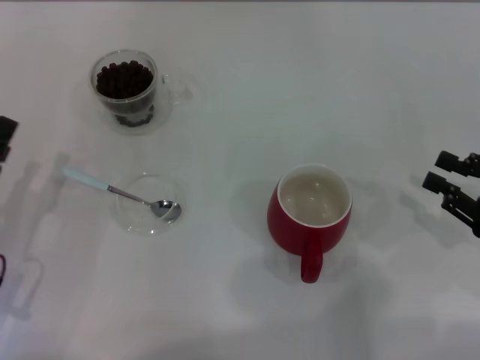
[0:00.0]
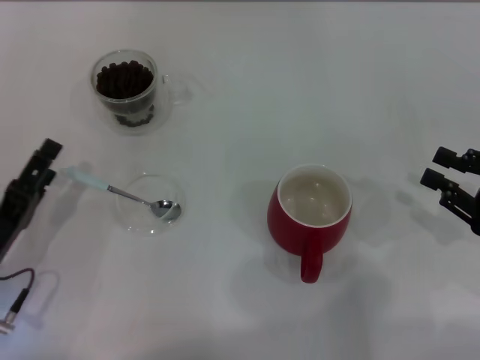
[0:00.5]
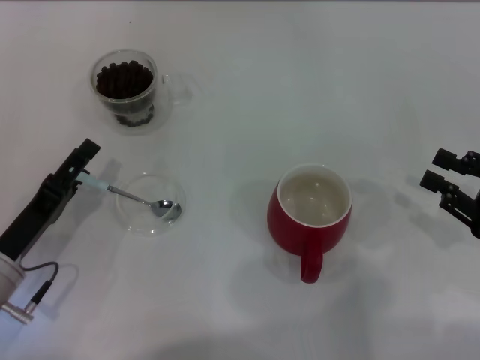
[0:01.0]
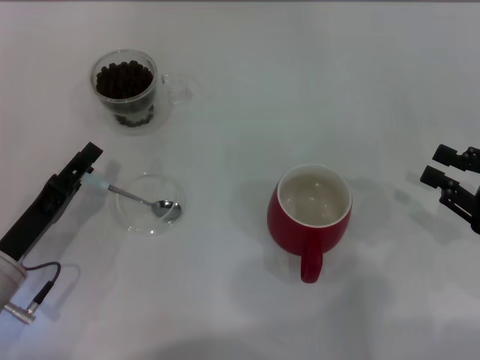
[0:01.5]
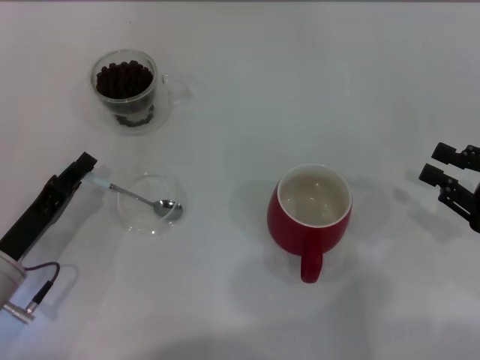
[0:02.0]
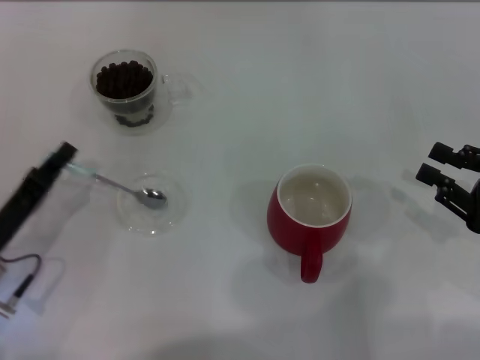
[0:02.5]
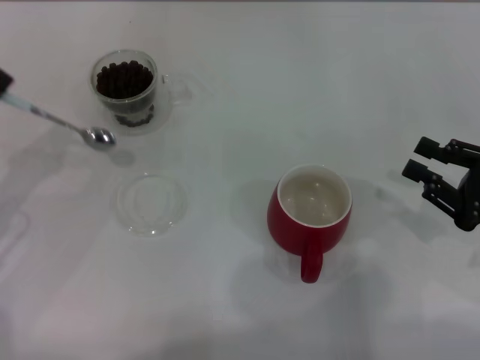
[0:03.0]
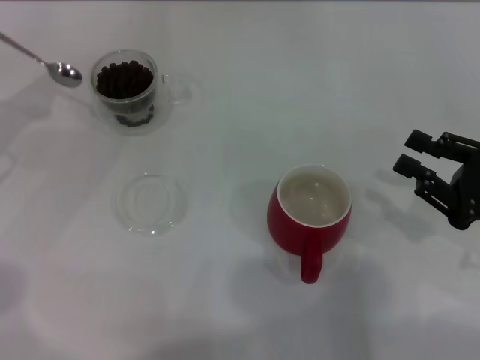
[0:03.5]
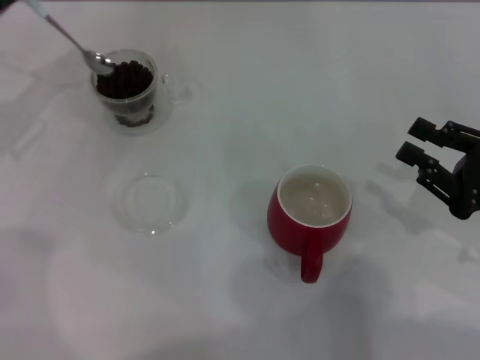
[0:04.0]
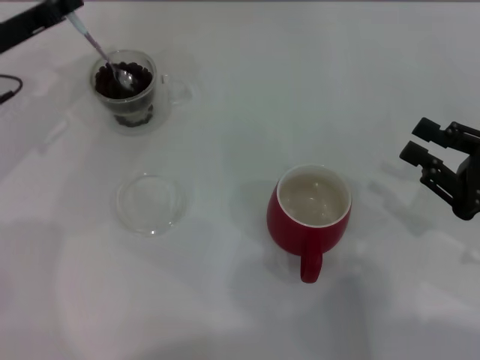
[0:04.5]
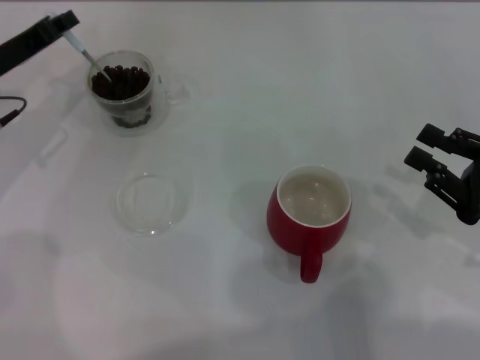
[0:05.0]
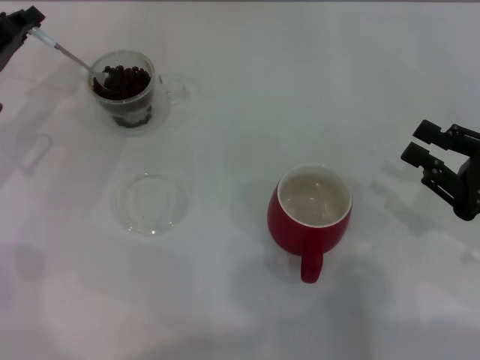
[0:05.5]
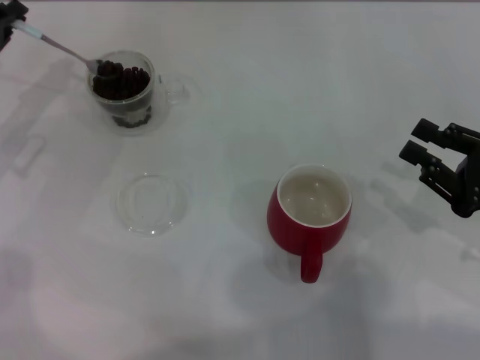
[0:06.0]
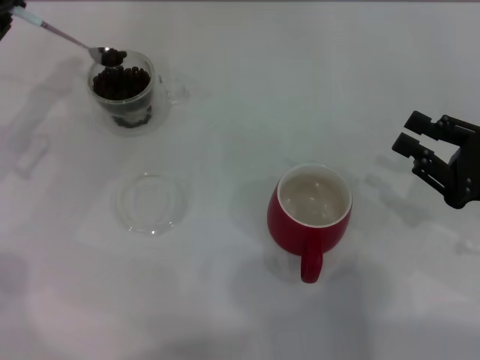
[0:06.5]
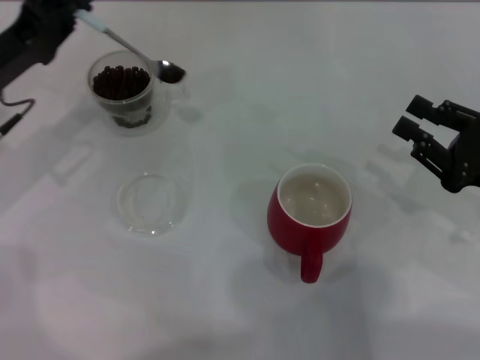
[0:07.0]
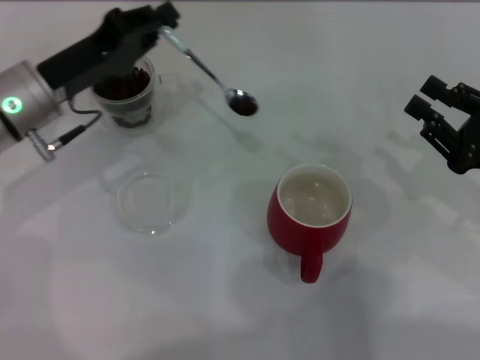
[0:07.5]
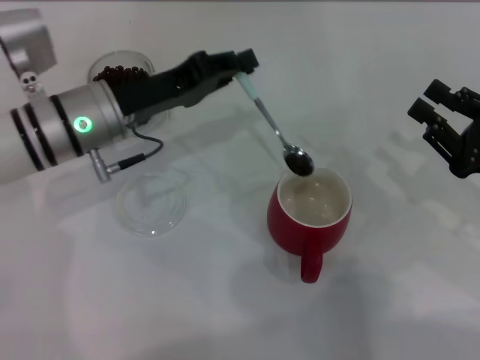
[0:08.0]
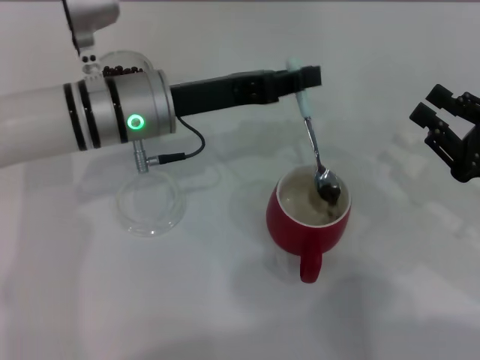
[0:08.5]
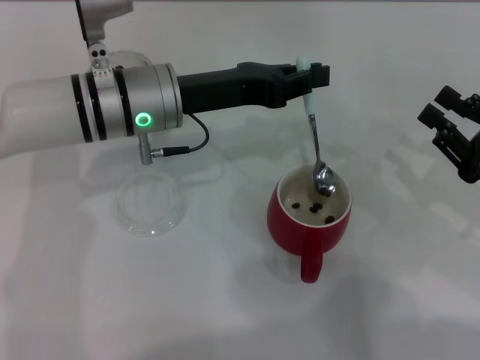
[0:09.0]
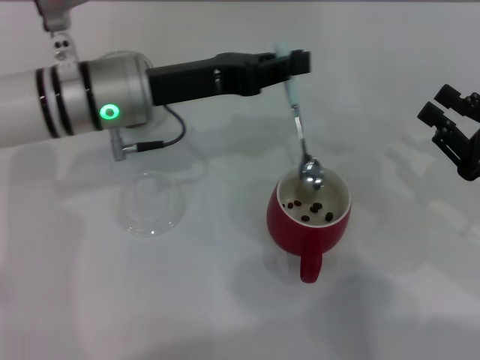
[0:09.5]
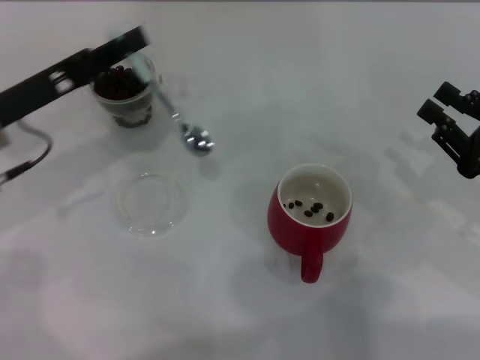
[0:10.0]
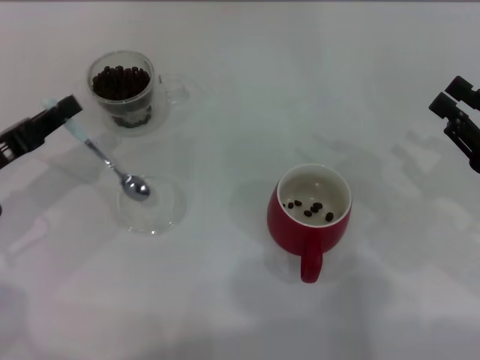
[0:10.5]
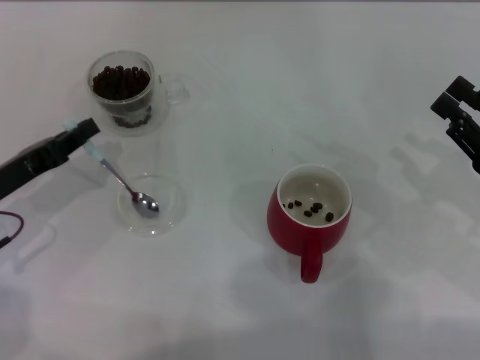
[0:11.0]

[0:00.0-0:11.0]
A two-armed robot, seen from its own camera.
Task of the whole recording: Use a blue spoon to take out the coffee beans from the glass and pour them into the red cup.
Step, 0:00.0 to 0:02.5: Pick up the spoon with the right gripper.
0:00.0 to 0:02.0: The left gripper closes up.
0:02.0 to 0:03.5: The left gripper shifts about 20 cm upward, forward and to the left, and closes.
0:03.5 to 0:05.5: The left gripper ends up roughly 5 cm from where it was.
0:05.5 to 0:07.5: The left gripper is displaced to the right by approximately 10 cm.
0:07.5 to 0:09.0: The left gripper shifts about 10 cm to the right.
0:09.0 to 0:11.0: The left gripper goes roughly 20 cm to the left and backward.

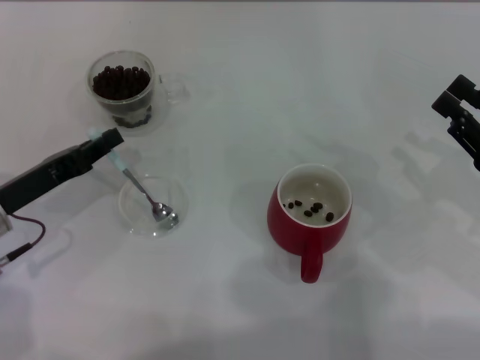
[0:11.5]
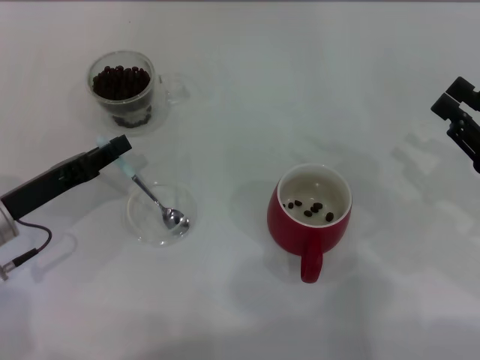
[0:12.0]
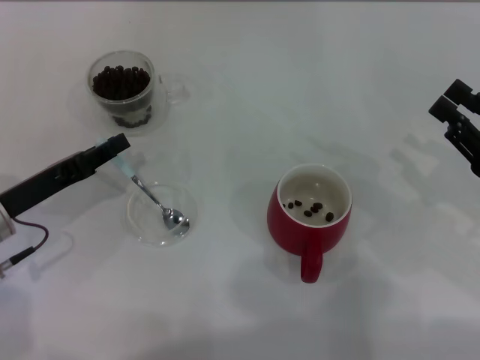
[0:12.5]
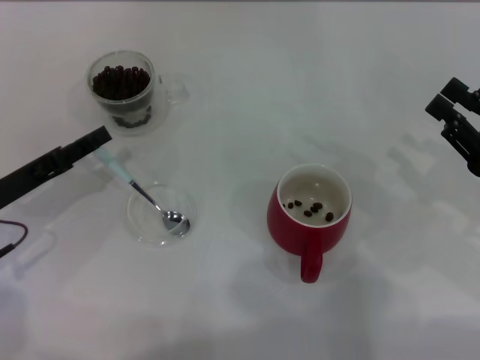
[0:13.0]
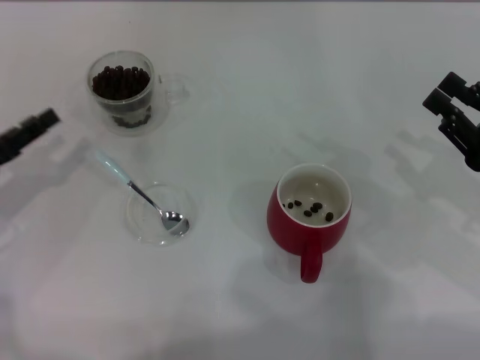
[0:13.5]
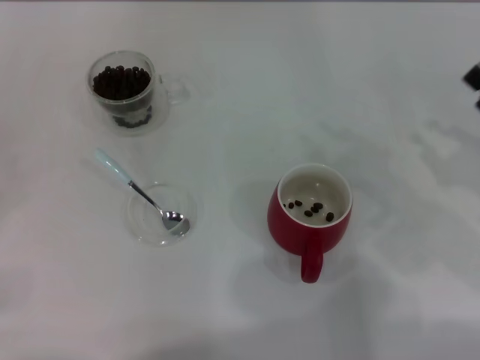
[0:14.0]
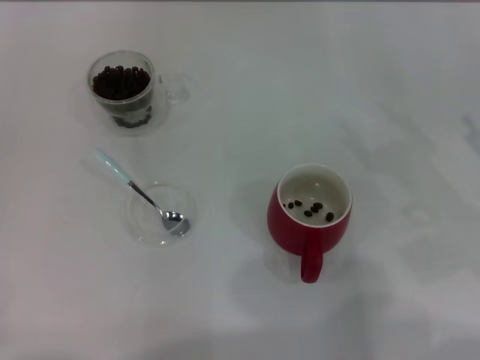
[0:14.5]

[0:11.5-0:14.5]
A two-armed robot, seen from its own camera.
Task of the whole recording: Use a blue spoon to take out the coffee beans from the glass and pour them into the red cup.
0:11.5 to 0:13.0: The left gripper opens its fingers.
0:13.0 to 0:14.5: The left gripper moves to the left and backward, some 20 cm.

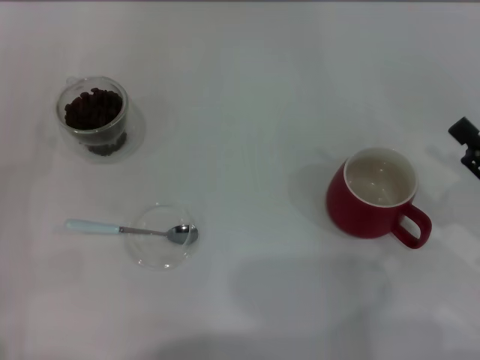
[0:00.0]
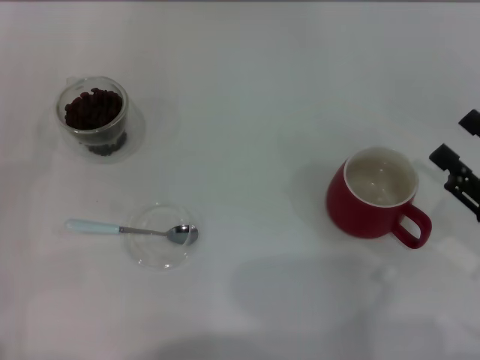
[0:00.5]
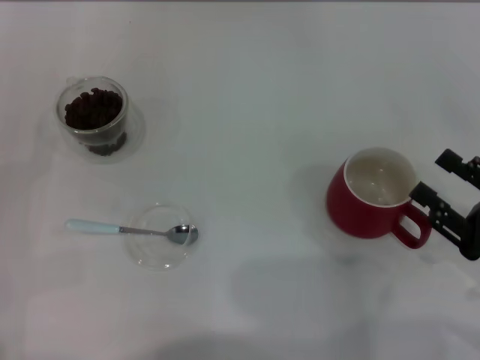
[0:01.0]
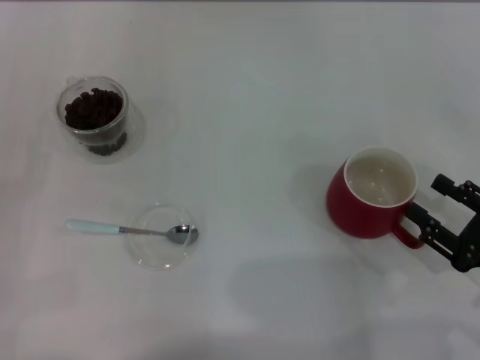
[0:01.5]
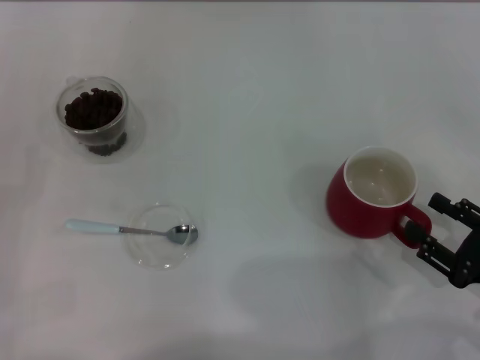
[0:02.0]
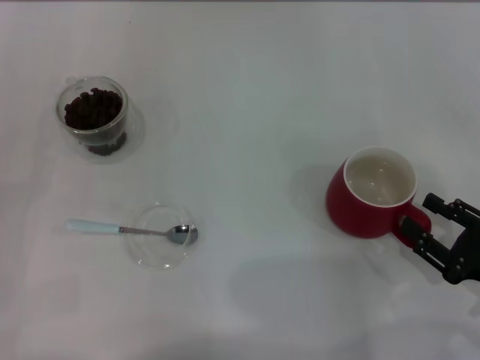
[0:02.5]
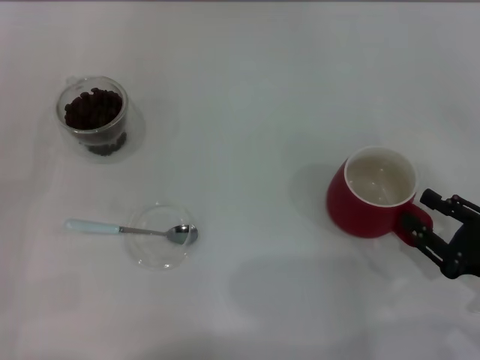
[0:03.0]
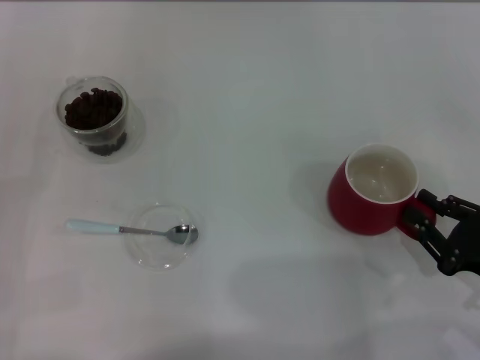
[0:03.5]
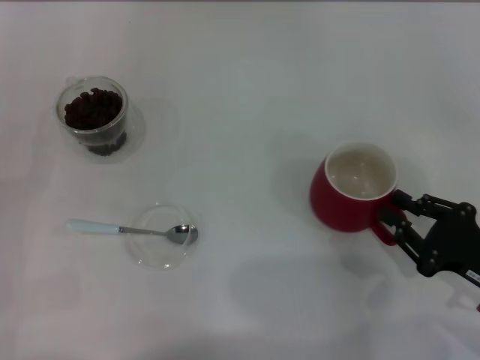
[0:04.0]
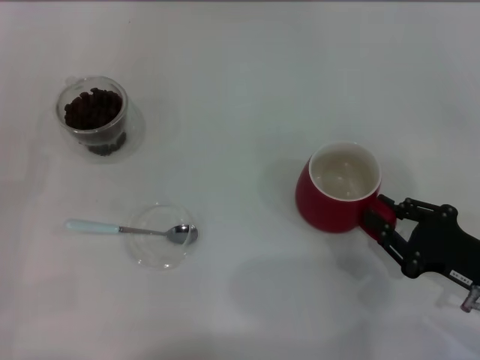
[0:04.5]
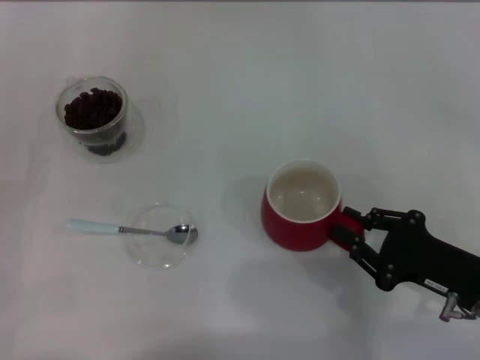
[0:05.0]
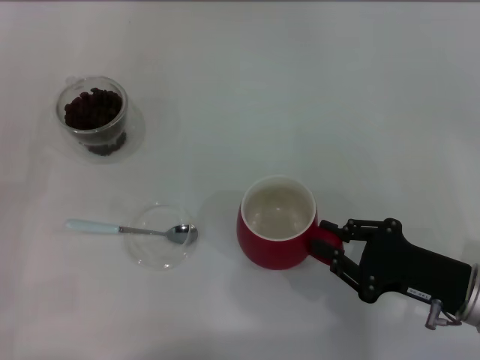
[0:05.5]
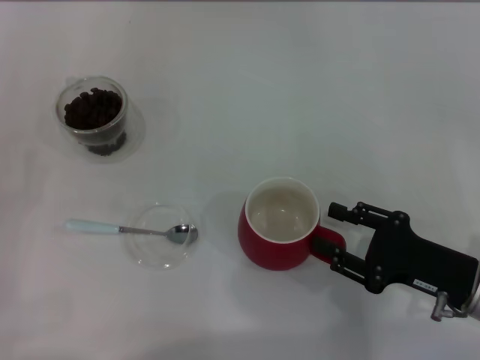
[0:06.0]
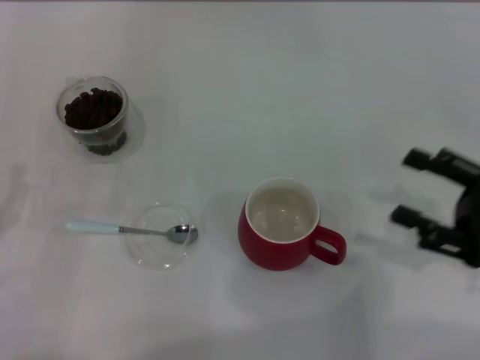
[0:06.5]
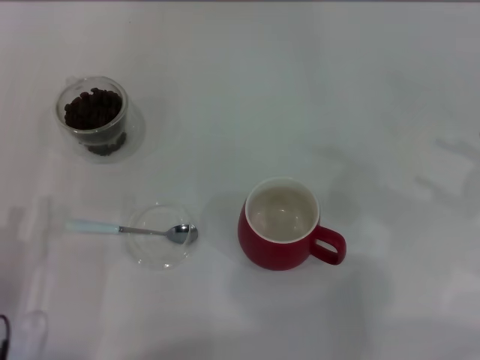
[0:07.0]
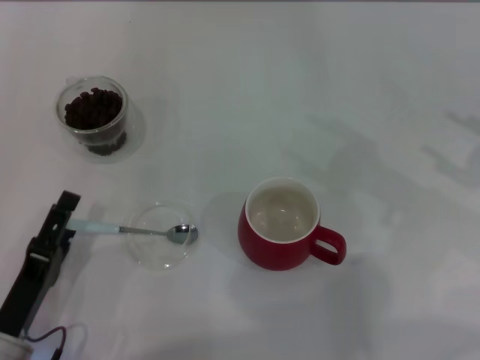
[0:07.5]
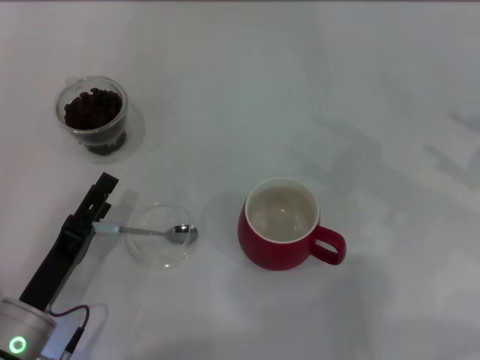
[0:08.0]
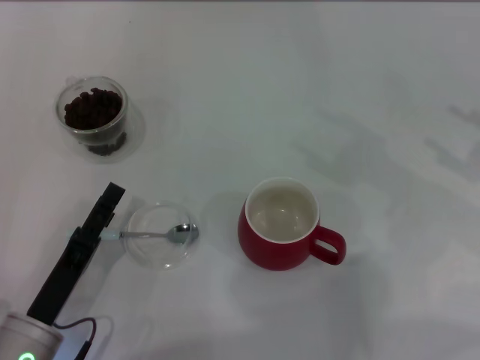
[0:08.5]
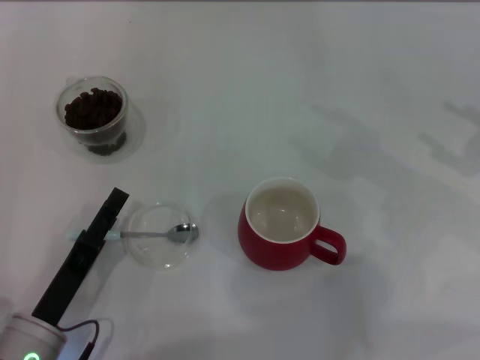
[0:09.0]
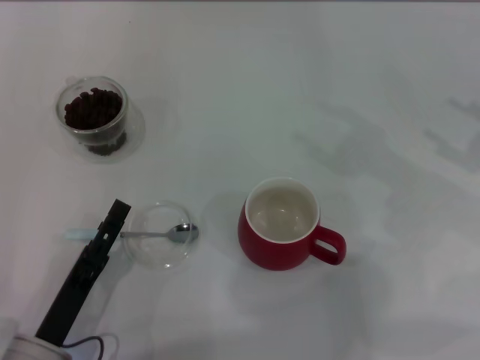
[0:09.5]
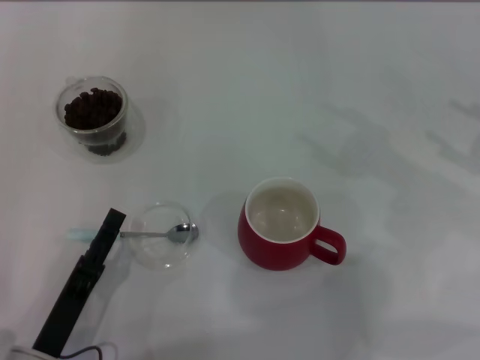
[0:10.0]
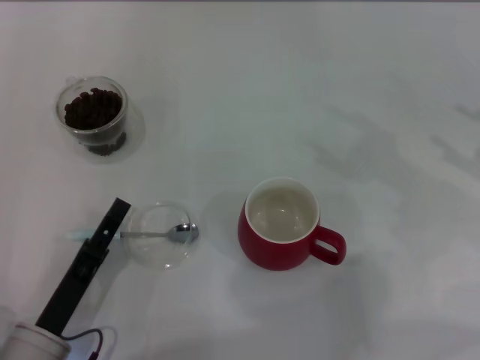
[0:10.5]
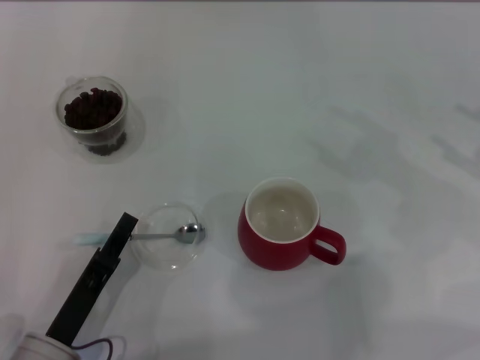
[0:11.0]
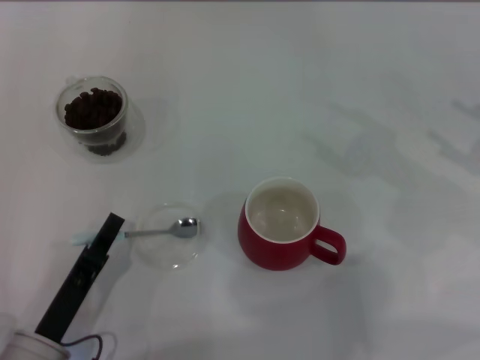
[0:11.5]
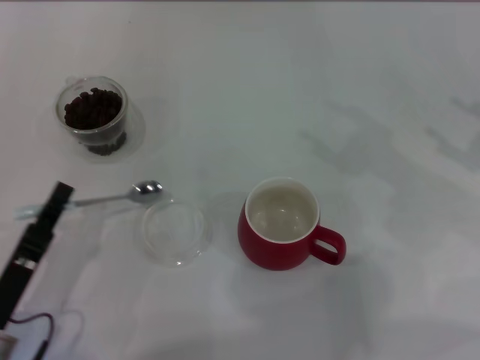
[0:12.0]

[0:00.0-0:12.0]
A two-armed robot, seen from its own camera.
Task of the whole recording: Use a blue spoon to take out the coffee beans from the glass and pour them into the red cup.
Step, 0:00.0 to 0:06.0: Move the cup to the center of view with the left gripper.
Step, 0:06.5 to 0:12.0: Pick up the spoon with the right gripper.
0:00.0 to 0:02.0: The right gripper shifts by approximately 5 cm.
0:02.0 to 0:04.0: The right gripper closes its fingers.
0:04.0 to 0:06.0: The grippers move only a little.
0:06.0 to 0:08.0: The right gripper travels to the right and upward by approximately 15 cm, and opens, while the left gripper moves to the right, approximately 15 cm.
0:08.0 to 0:10.0: There are only small adjustments of the grippers.
0:10.0 to 0:12.0: The left gripper changes place by some 5 cm, and closes up.
